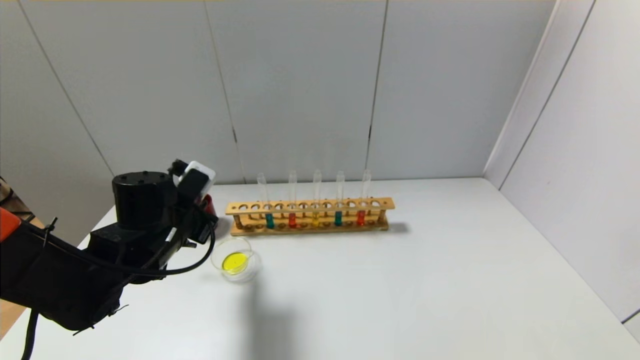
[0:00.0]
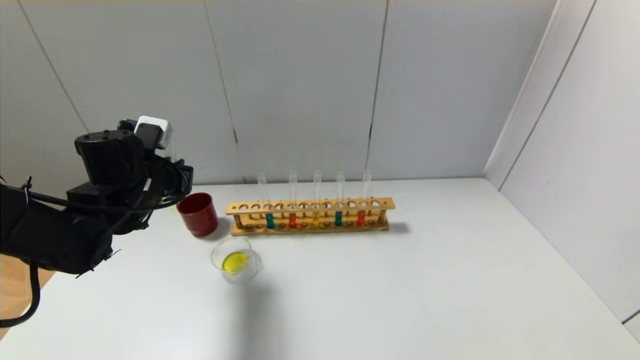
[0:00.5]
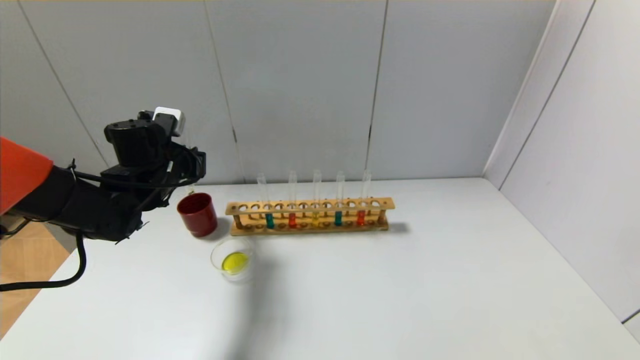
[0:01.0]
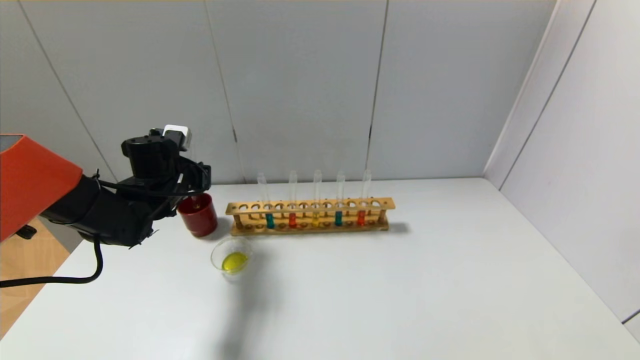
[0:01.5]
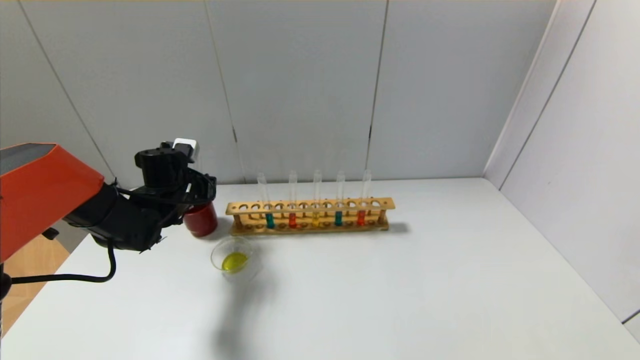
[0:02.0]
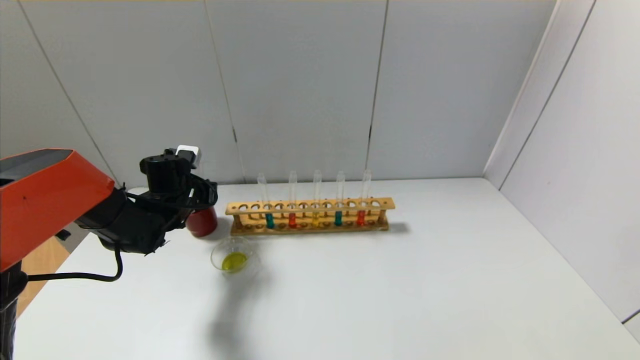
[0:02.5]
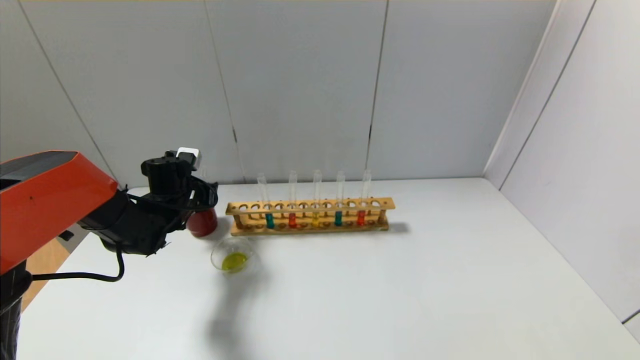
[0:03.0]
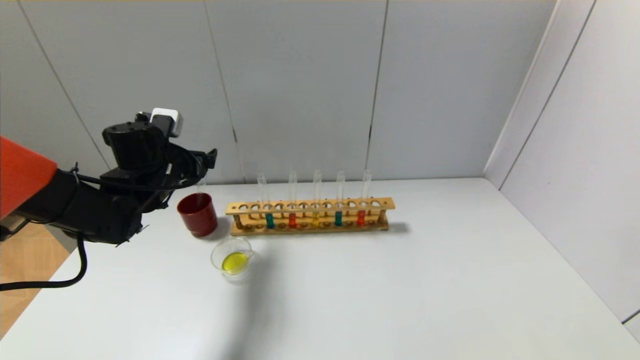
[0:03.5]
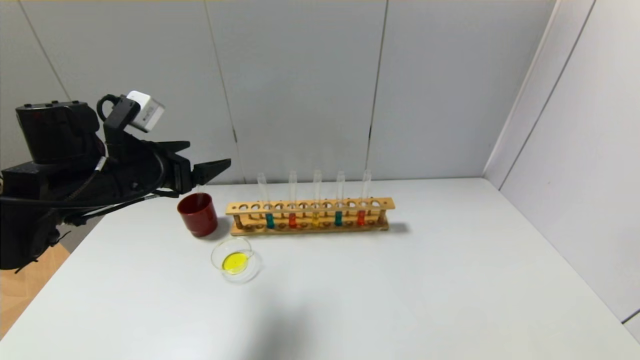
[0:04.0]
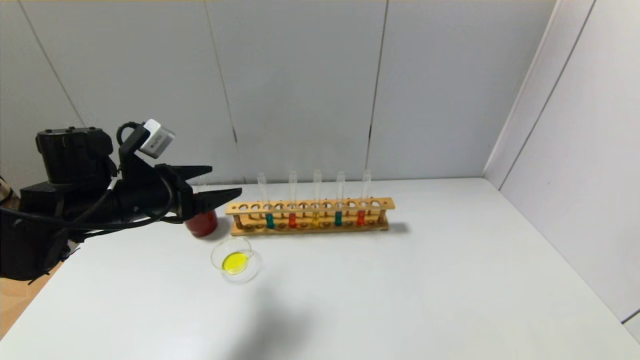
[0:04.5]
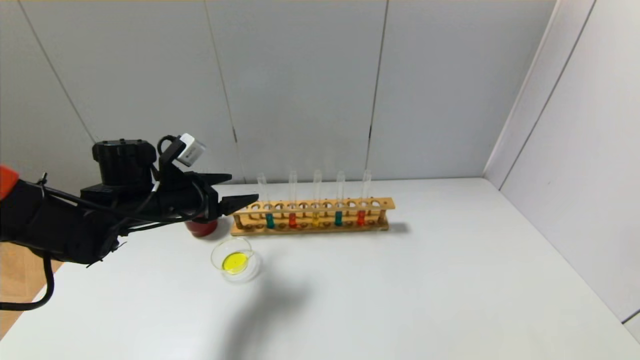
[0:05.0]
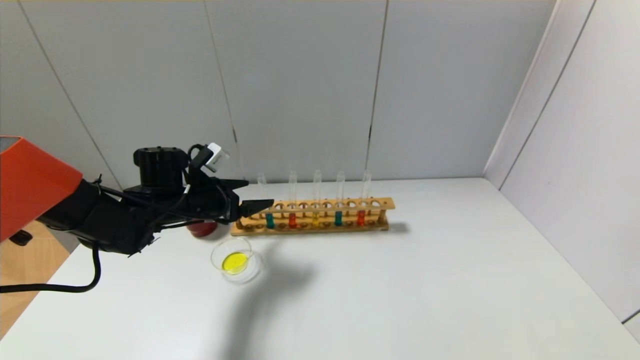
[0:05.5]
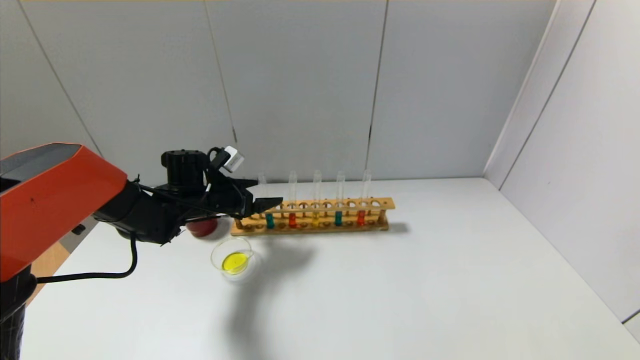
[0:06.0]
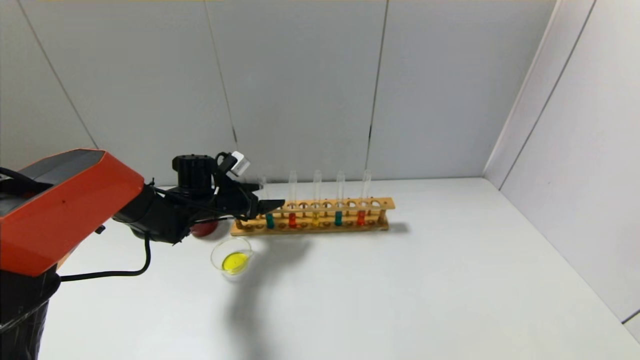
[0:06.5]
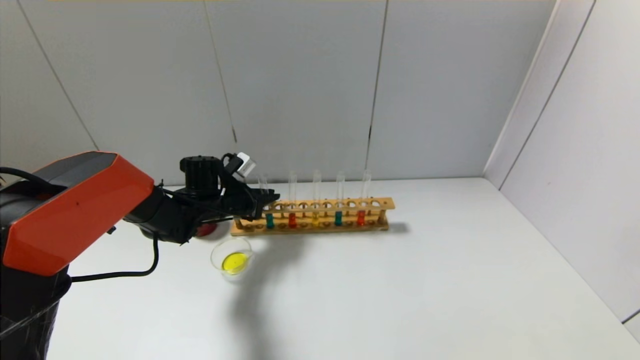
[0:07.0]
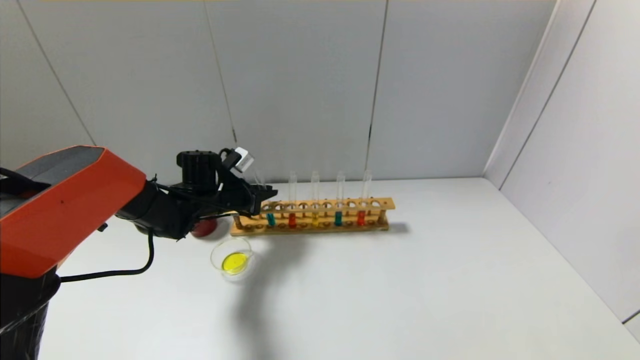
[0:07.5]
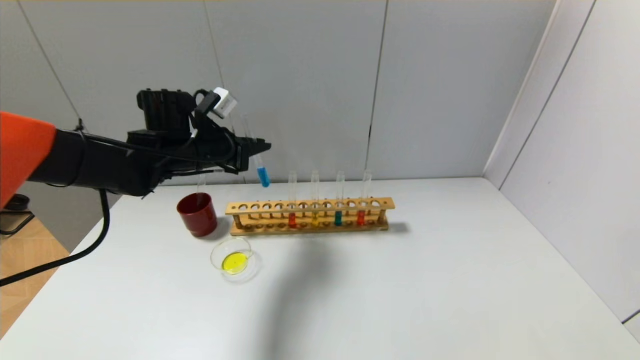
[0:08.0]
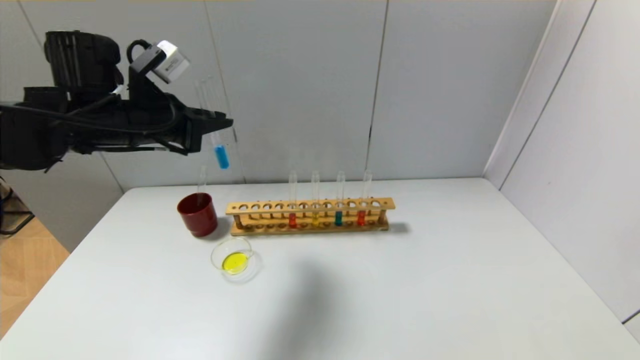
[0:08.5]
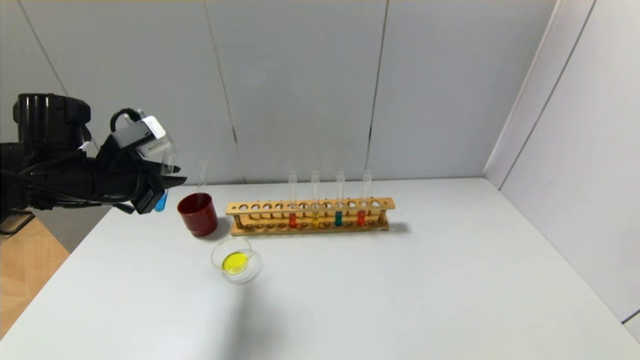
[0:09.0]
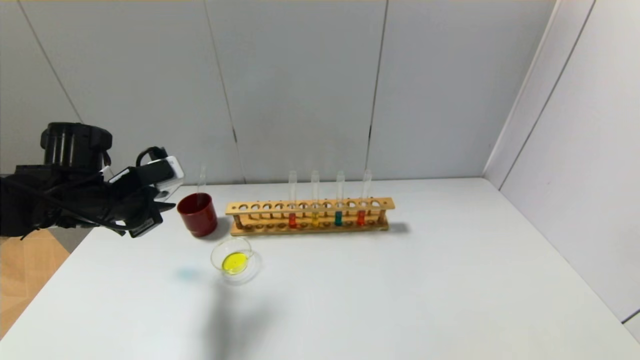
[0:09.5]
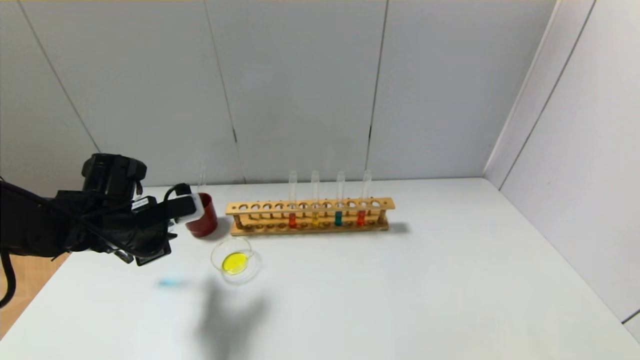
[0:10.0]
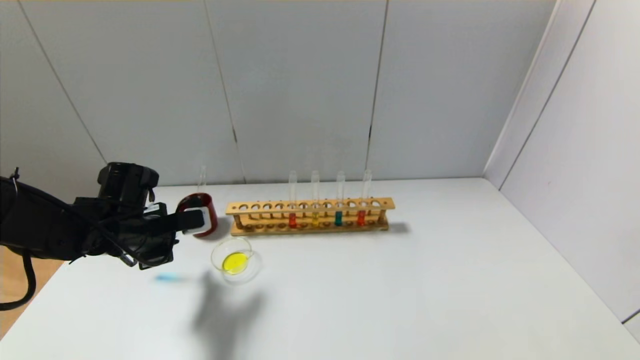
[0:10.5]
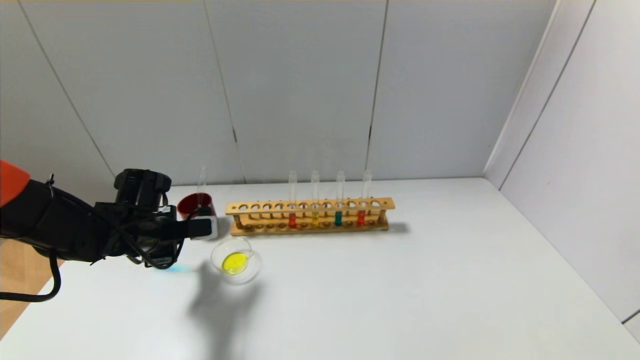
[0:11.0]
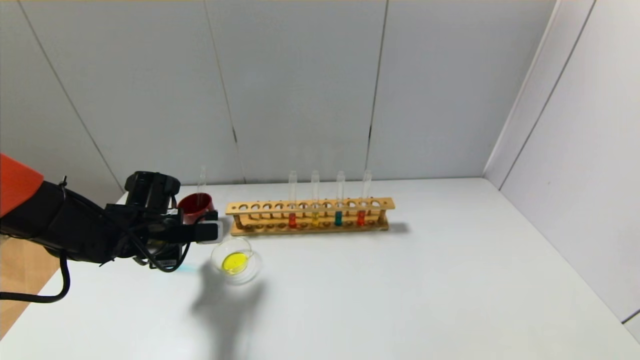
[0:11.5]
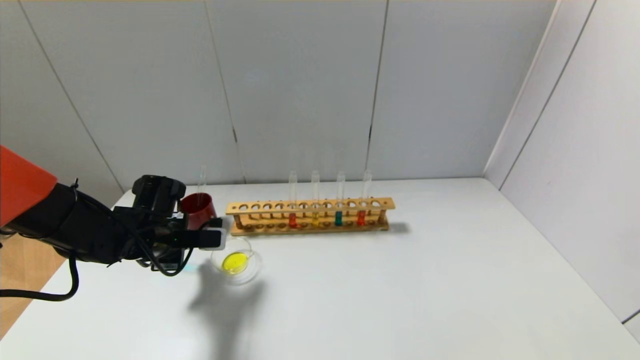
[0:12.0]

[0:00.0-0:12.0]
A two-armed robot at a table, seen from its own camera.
Step, 0:00.0 to 0:02.5: Place the test tube into the brown cup with the left gripper.
Step, 0:03.0 to 0:07.0: Grasp the blue reagent with the left gripper.
0:00.0 to 0:02.0: The left gripper heads forward, covering about 10 cm.
0:02.0 to 0:04.0: The left gripper shifts approximately 15 cm backward and upward, and opens.
0:04.0 to 0:06.0: The left gripper travels forward and downward by about 15 cm.
0:06.0 to 0:08.0: The left gripper is displaced upward by about 10 cm, and closes its fingers.
0:08.0 to 0:10.0: The left gripper heads backward, downward and to the left, covering roughly 15 cm.
0:10.0 to 0:12.0: The left gripper is displaced downward by some 5 cm.

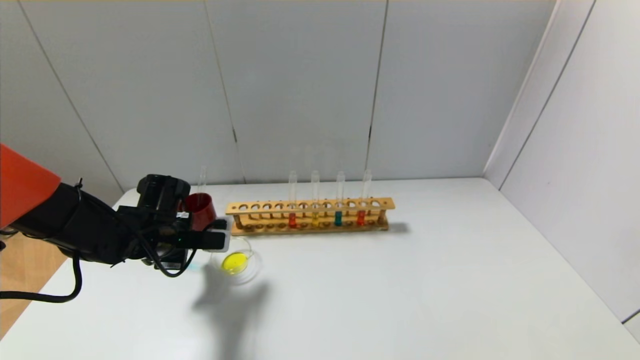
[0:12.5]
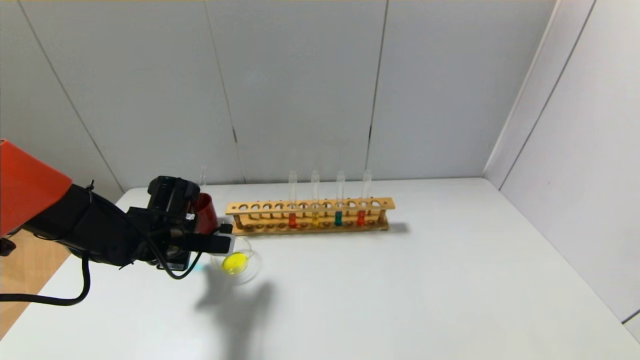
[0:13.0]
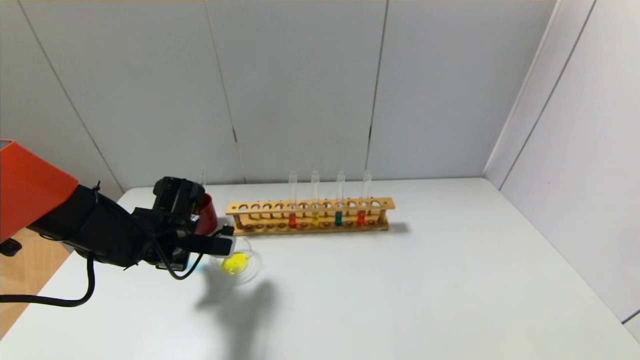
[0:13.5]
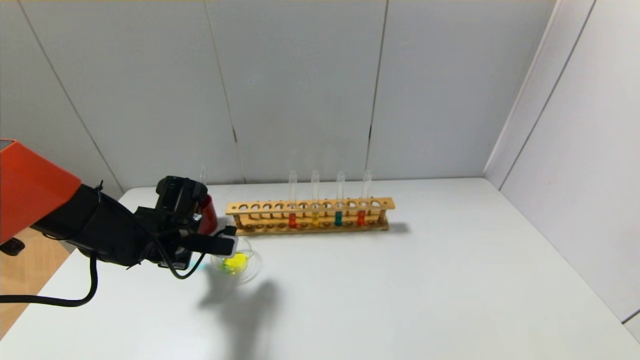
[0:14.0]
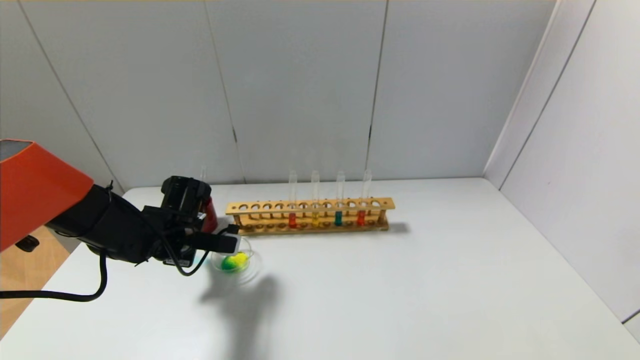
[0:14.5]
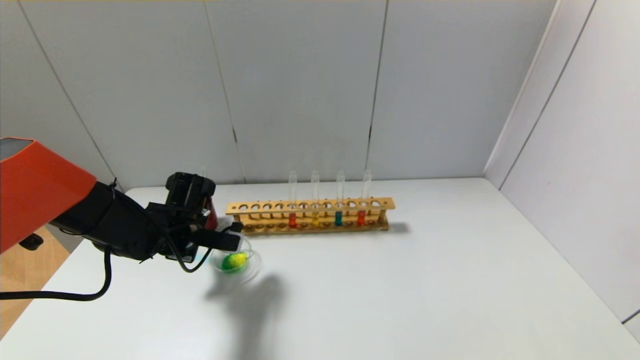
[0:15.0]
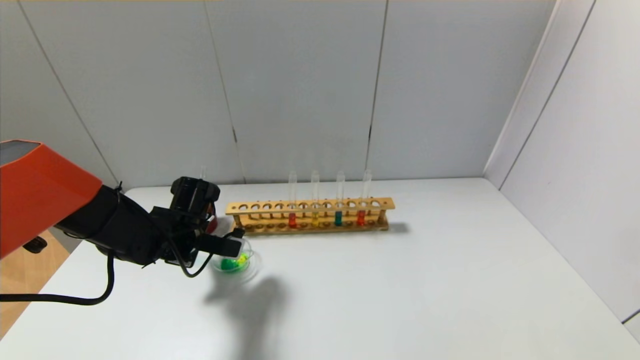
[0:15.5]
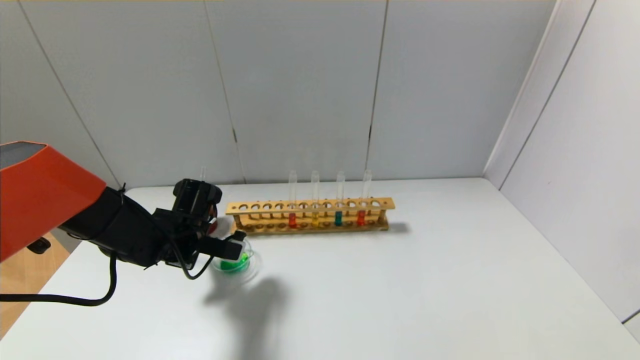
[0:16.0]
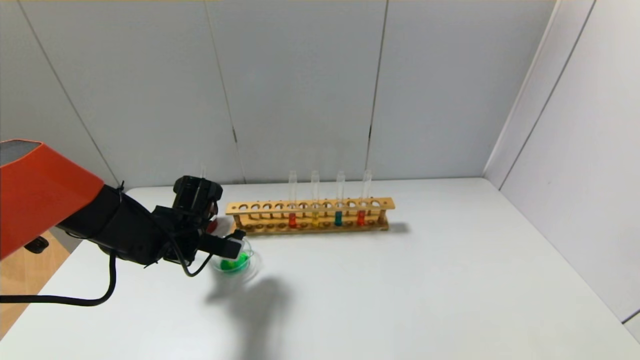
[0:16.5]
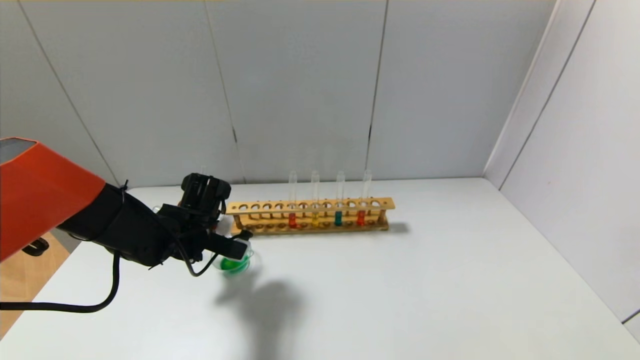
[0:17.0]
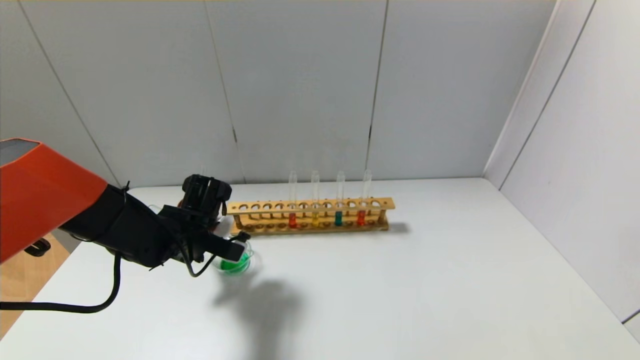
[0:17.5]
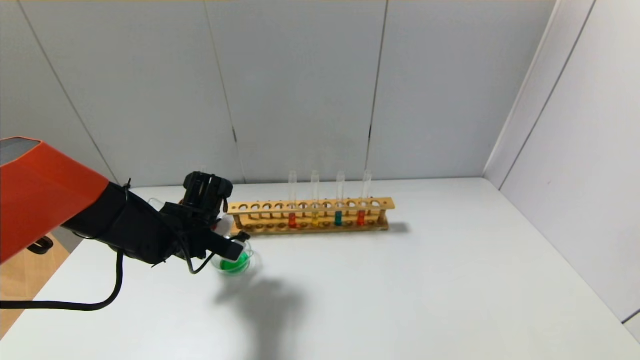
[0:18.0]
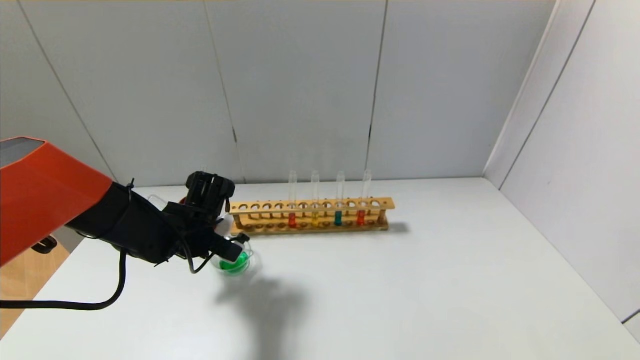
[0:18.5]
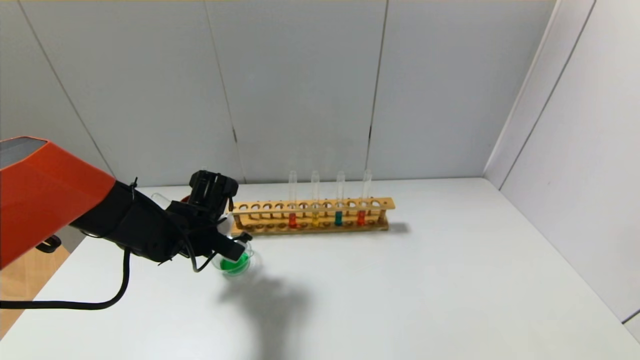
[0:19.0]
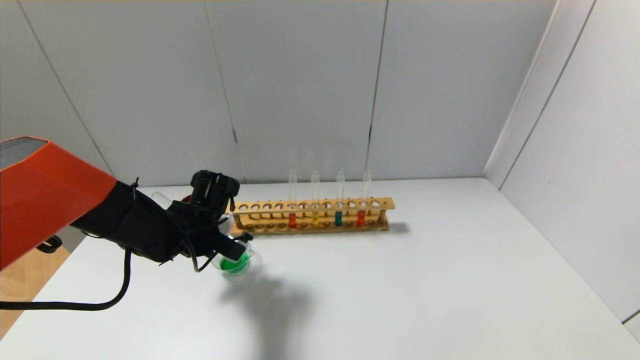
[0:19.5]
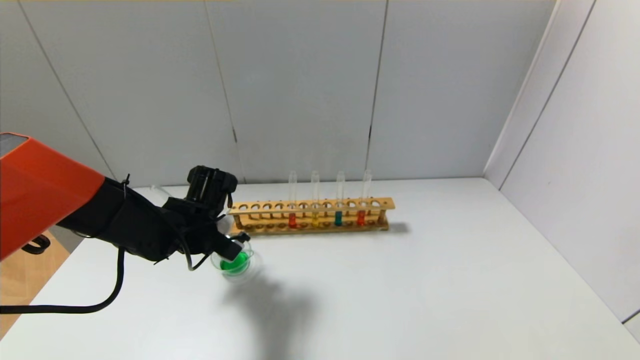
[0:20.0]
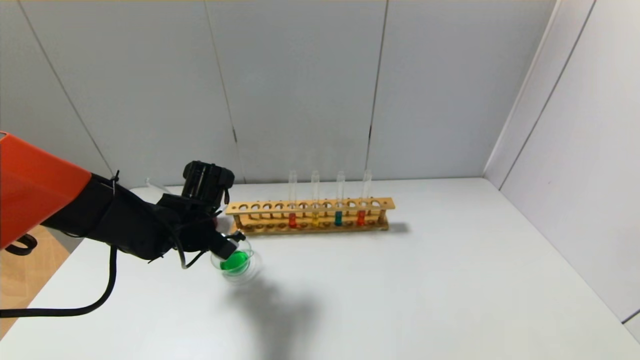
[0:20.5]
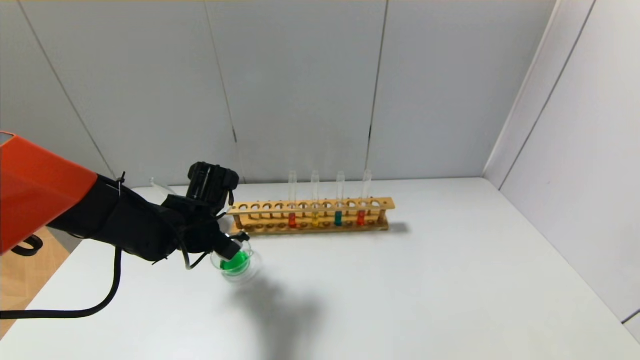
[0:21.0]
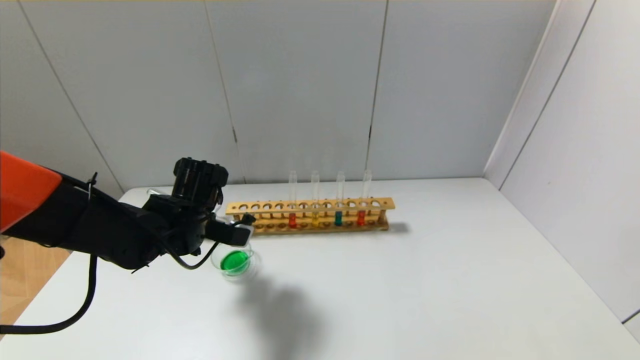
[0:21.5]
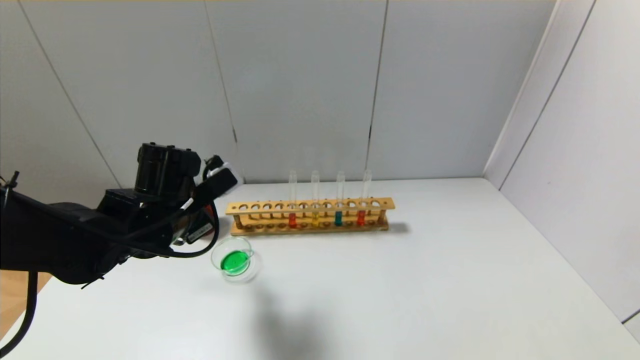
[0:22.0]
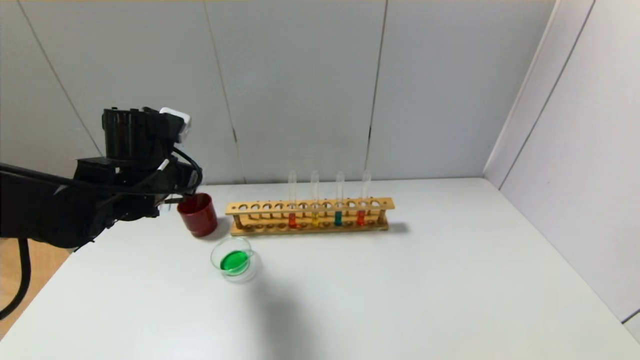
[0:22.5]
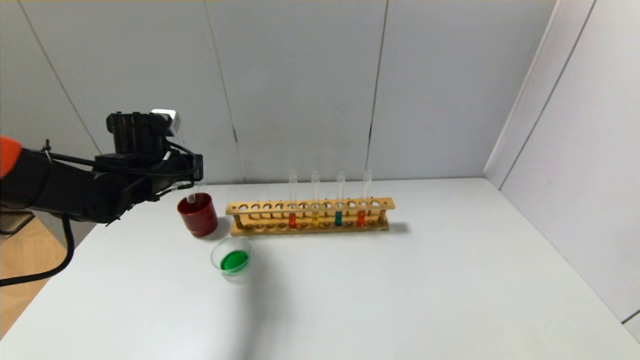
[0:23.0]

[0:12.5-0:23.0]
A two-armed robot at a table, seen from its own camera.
Step, 0:12.5 to 0:21.0: Pour the blue reagent into the graduated cylinder with the left gripper.
0:12.5 to 0:14.5: The grippers stay close to where they were, moving slightly.
0:14.5 to 0:16.5: There are only small adjustments of the grippers.
0:16.5 to 0:19.0: The grippers stay close to where they were, moving slightly.
0:19.0 to 0:21.0: The grippers stay close to where they were, moving slightly.
0:21.0 to 0:23.0: The left gripper travels to the left and upward by approximately 10 cm.
